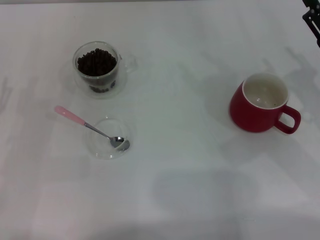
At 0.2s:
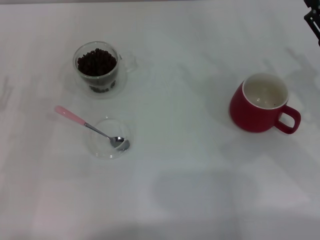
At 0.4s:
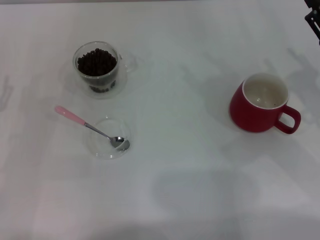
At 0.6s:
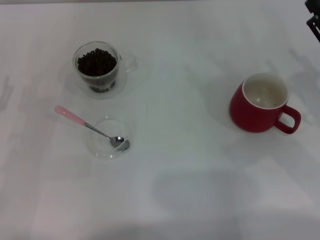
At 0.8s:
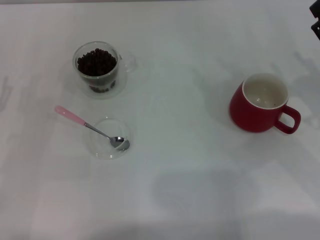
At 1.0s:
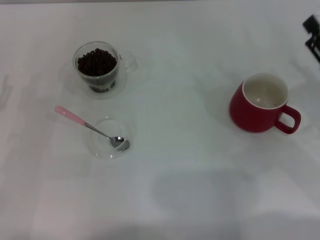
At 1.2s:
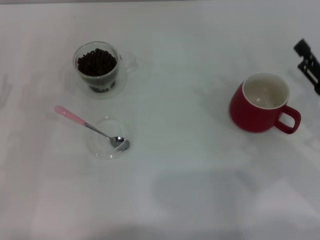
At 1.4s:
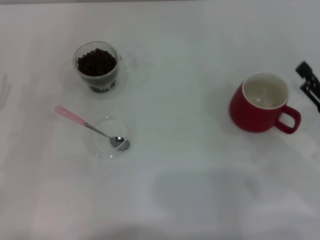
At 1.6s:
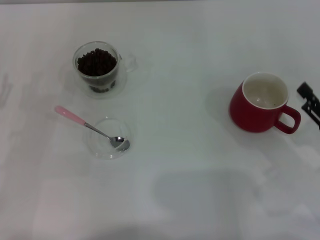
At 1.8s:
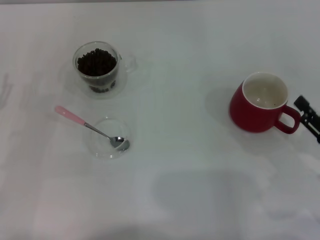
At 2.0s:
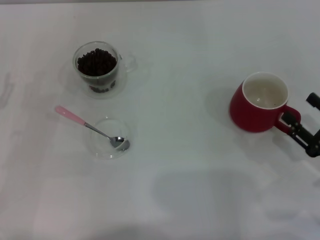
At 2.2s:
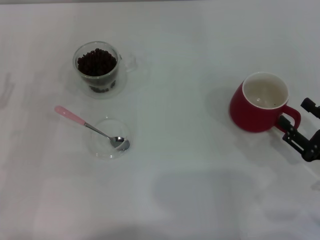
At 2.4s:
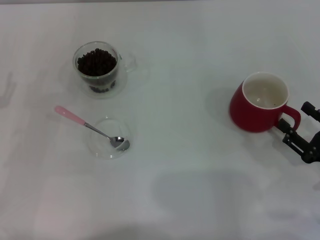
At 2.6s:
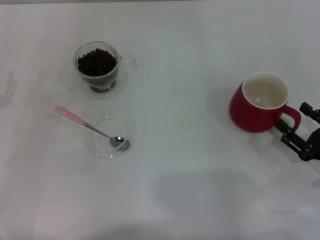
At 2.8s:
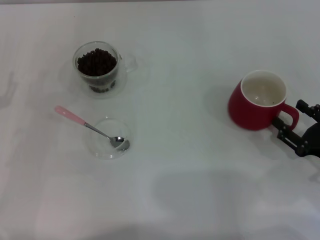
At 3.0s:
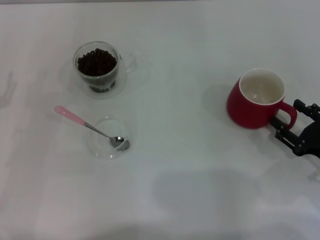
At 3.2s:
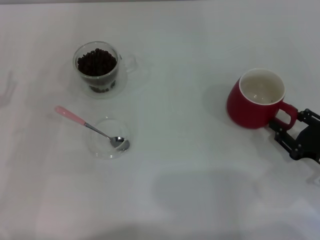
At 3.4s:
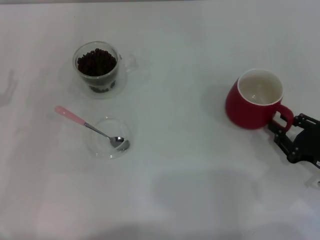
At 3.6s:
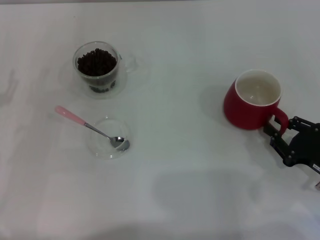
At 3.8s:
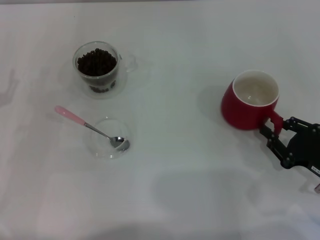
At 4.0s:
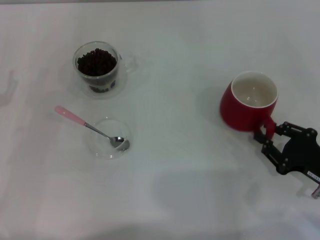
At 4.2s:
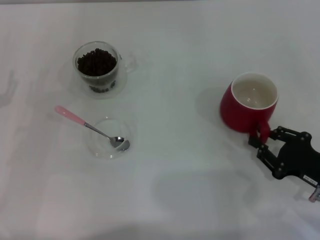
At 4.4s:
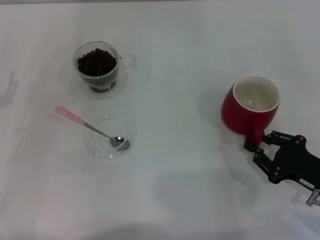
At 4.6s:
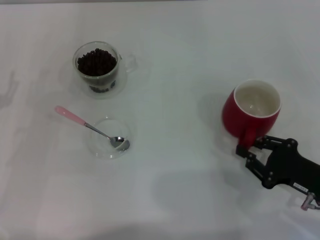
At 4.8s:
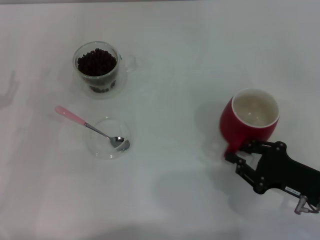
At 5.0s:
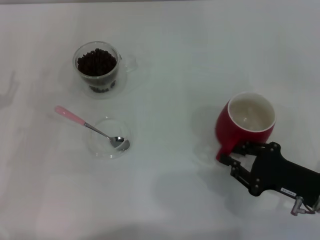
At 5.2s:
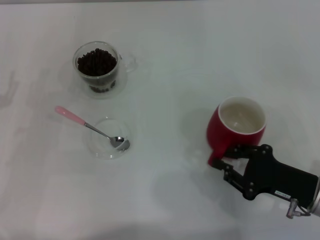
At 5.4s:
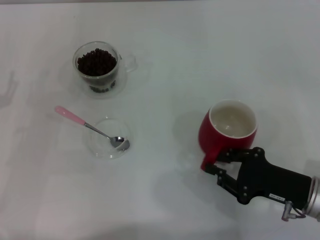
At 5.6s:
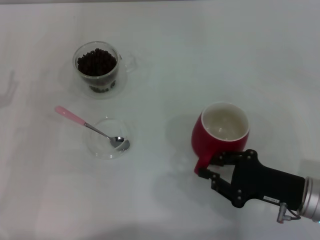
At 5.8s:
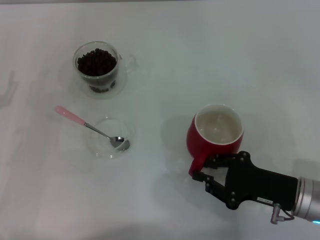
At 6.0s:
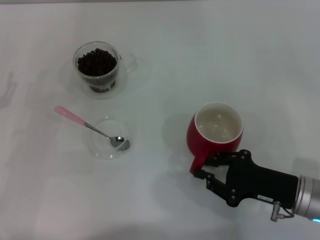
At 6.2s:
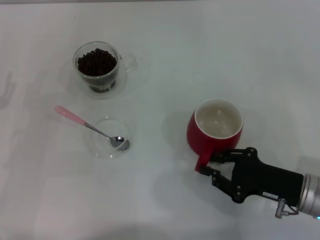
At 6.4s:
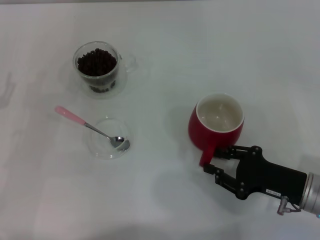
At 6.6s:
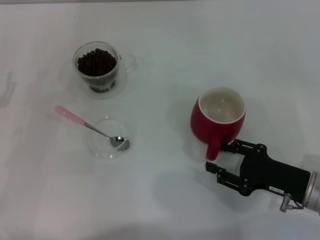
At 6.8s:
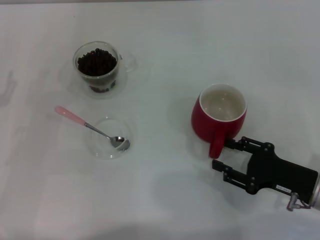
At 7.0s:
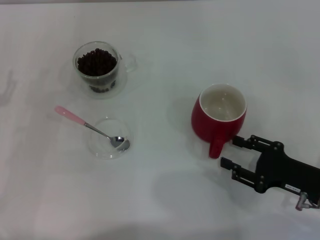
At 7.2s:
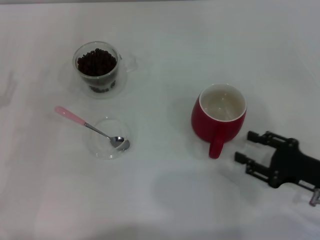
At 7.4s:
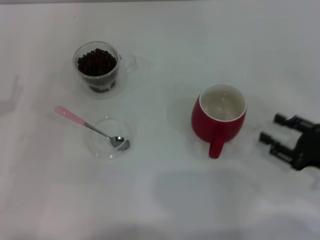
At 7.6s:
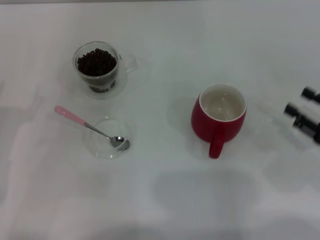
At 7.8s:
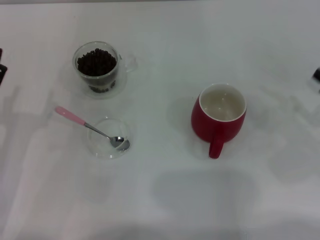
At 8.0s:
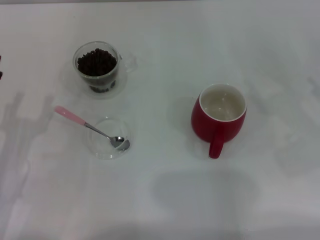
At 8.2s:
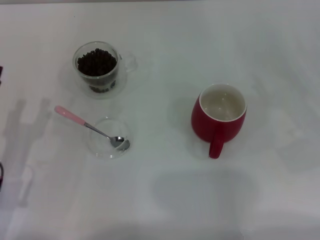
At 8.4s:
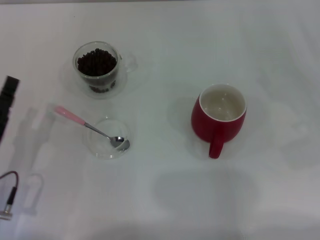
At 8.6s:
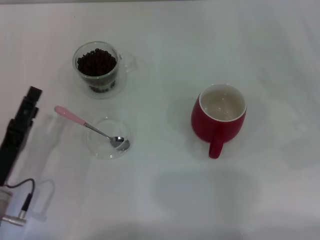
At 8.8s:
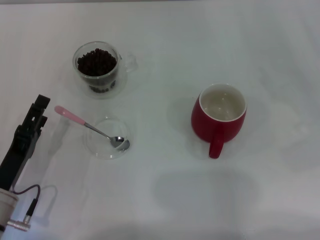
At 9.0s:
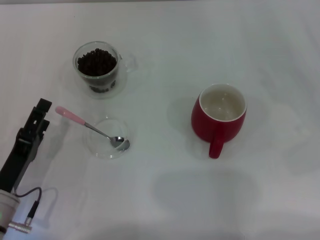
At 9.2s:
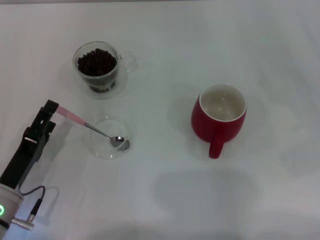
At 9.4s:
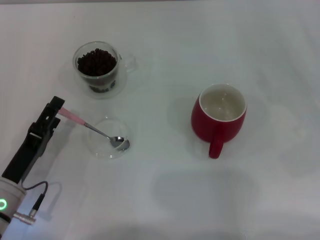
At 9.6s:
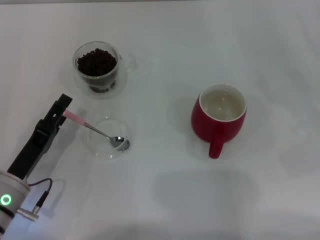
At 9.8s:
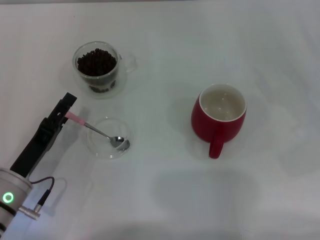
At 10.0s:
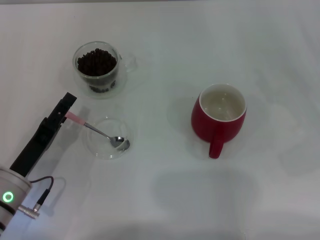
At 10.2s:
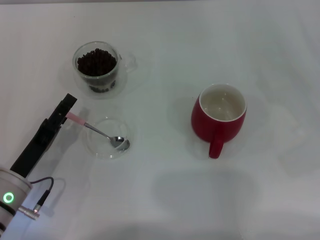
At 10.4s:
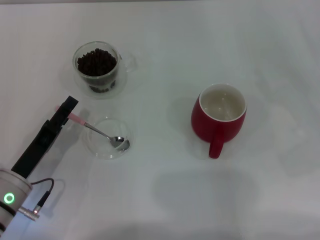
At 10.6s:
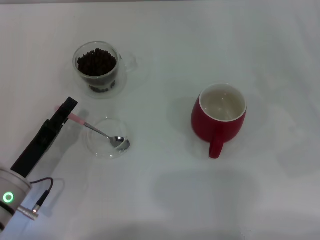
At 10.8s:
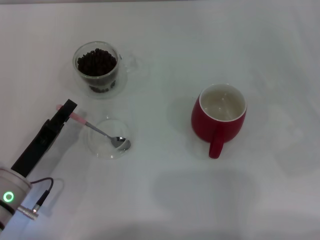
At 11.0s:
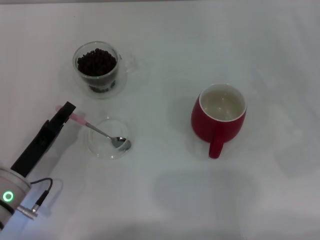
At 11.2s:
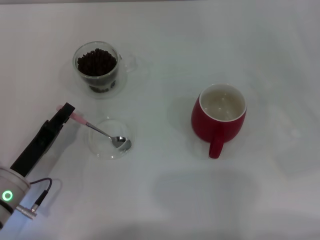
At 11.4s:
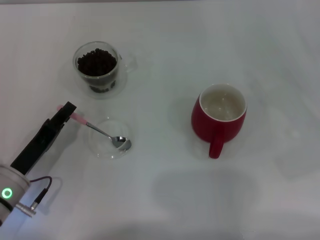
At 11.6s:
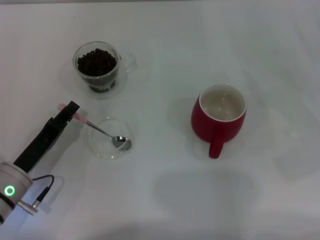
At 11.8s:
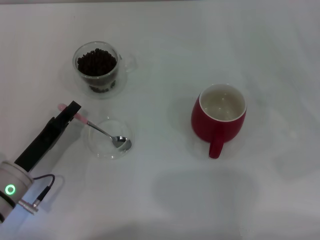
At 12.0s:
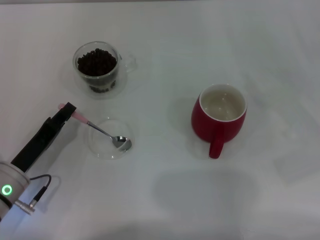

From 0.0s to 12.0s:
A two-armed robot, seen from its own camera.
Task of the whole recording: Use a pink spoon to take out the coffee beans from the glass and pour them into the red cup.
Step, from 0.0s to 7.4s: Move the cup to the center of view with the left gripper.
From 0.0s to 1.6s: The right gripper is displaced backward by roughly 10 cm.
From 1.6s to 3.0s: The grippers stay close to where they were, moving slightly.
From 3.0s to 4.4s: The right gripper closes.
From 4.4s to 6.0s: The right gripper is displaced to the left by about 5 cm.
From 6.0s to 7.6s: The right gripper goes some 10 cm to the right, and opens its fingers.
From 7.6s to 9.0s: The right gripper shifts about 10 cm to the right and upward. The left gripper is displaced downward by roughly 5 cm.
From 9.0s to 10.4s: The grippers stay close to where they were, moving slightly.
From 10.4s to 12.0s: The left gripper closes up.

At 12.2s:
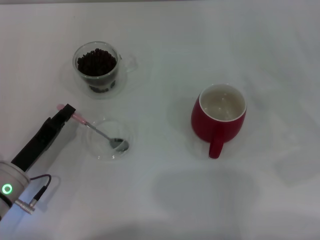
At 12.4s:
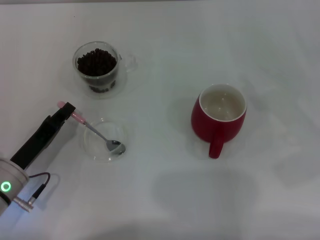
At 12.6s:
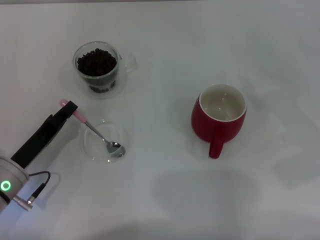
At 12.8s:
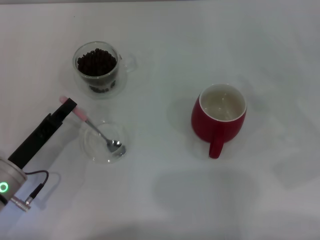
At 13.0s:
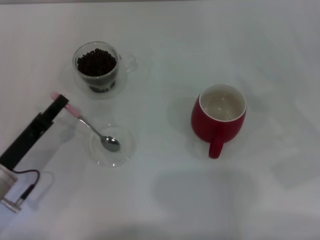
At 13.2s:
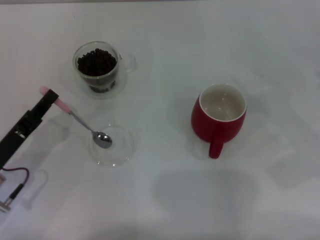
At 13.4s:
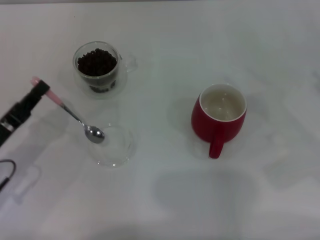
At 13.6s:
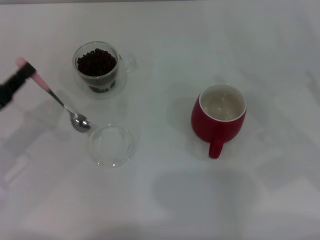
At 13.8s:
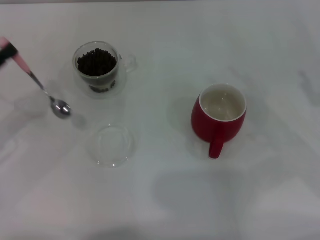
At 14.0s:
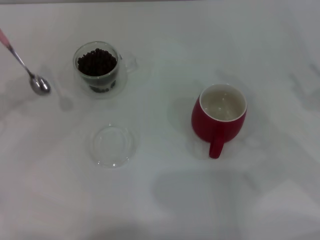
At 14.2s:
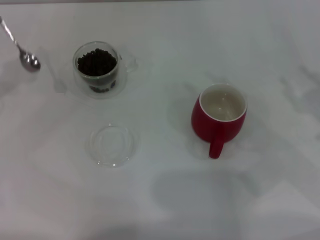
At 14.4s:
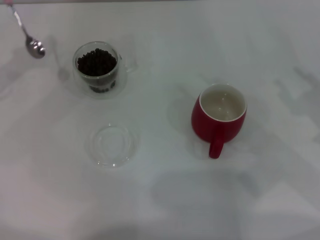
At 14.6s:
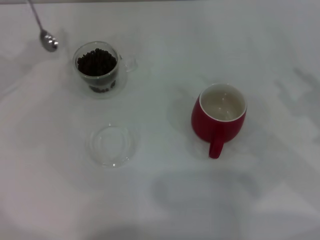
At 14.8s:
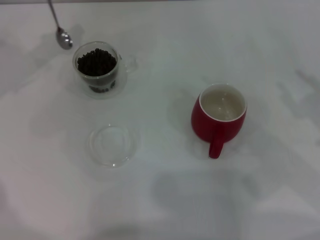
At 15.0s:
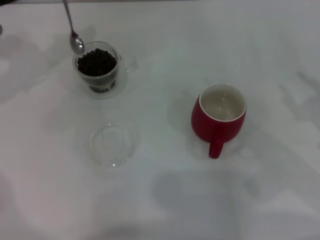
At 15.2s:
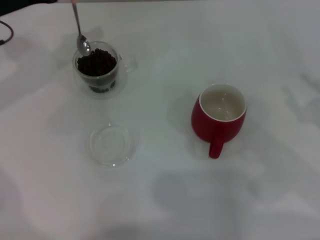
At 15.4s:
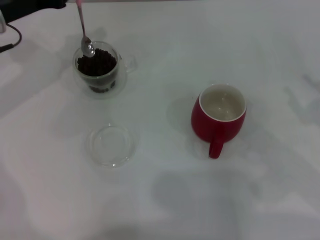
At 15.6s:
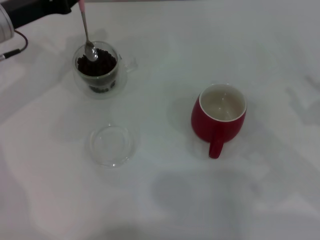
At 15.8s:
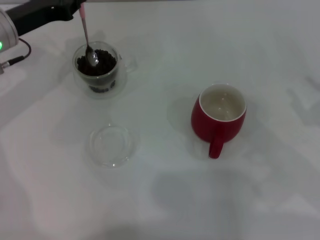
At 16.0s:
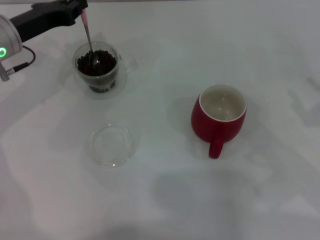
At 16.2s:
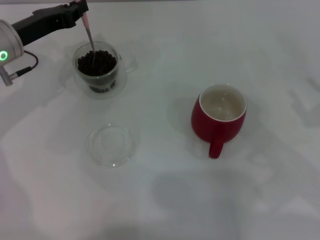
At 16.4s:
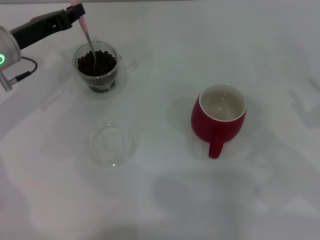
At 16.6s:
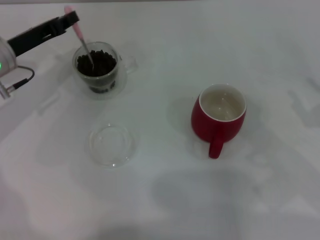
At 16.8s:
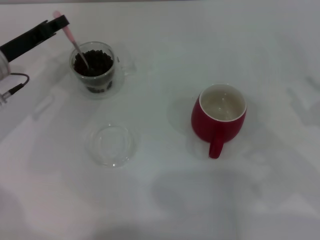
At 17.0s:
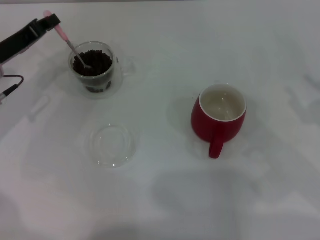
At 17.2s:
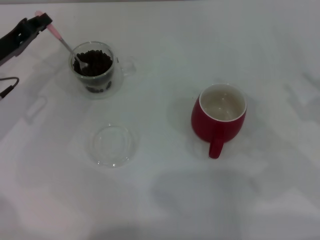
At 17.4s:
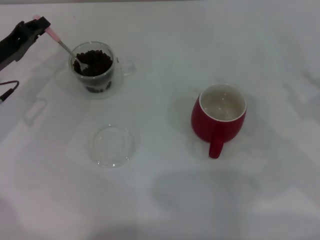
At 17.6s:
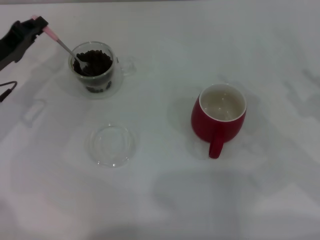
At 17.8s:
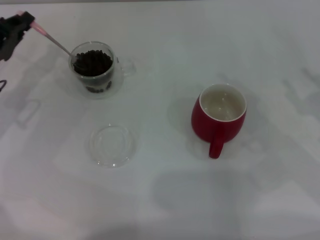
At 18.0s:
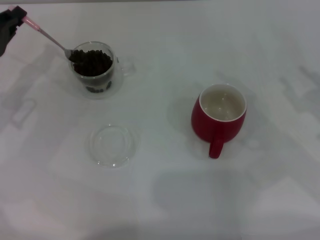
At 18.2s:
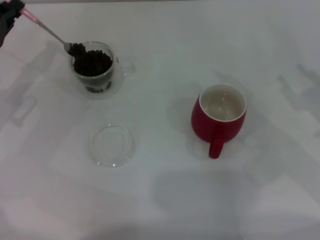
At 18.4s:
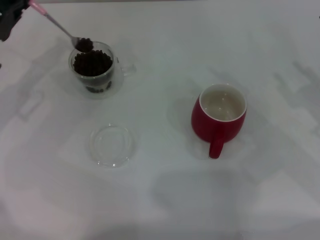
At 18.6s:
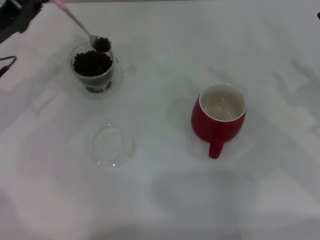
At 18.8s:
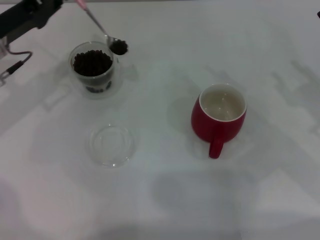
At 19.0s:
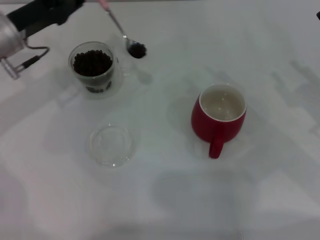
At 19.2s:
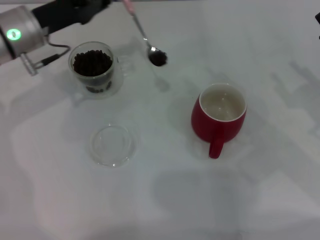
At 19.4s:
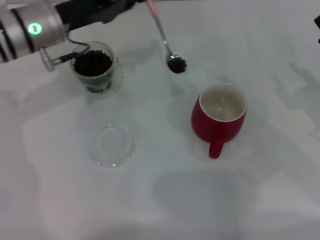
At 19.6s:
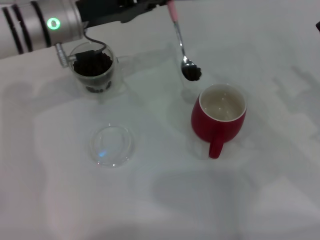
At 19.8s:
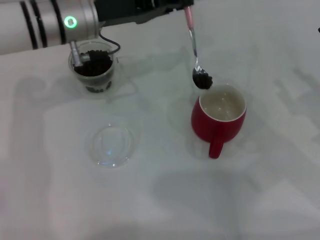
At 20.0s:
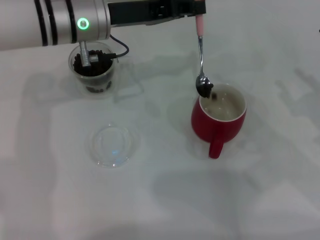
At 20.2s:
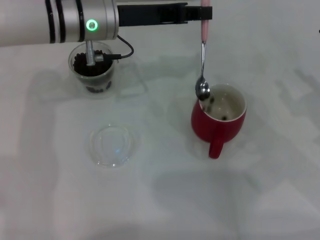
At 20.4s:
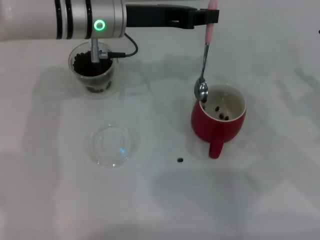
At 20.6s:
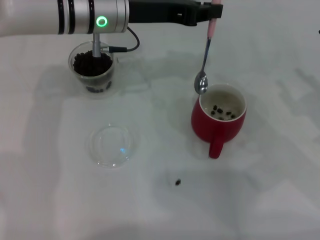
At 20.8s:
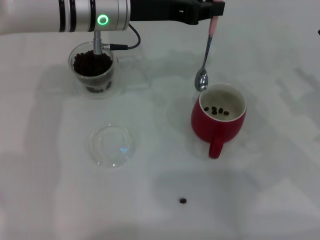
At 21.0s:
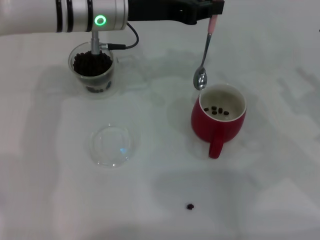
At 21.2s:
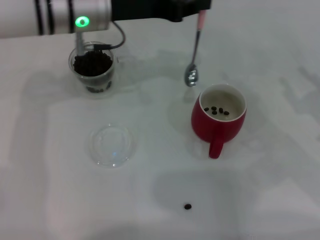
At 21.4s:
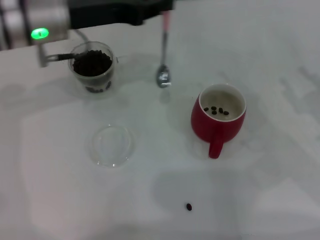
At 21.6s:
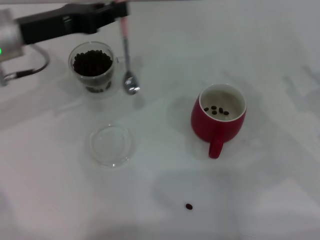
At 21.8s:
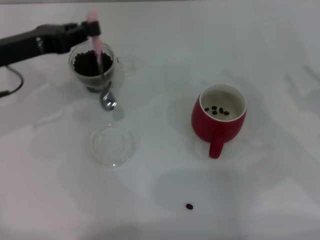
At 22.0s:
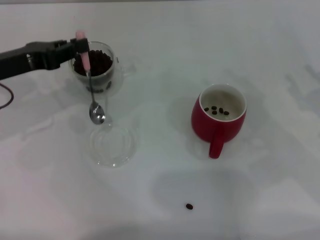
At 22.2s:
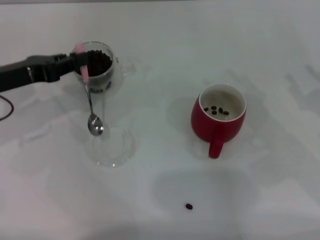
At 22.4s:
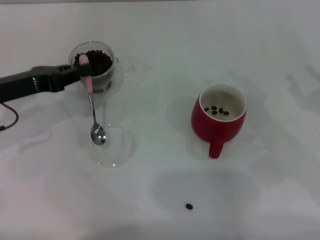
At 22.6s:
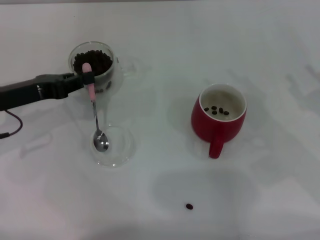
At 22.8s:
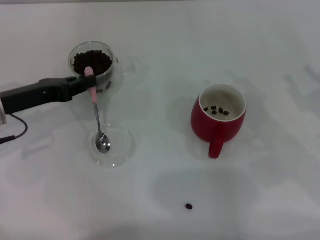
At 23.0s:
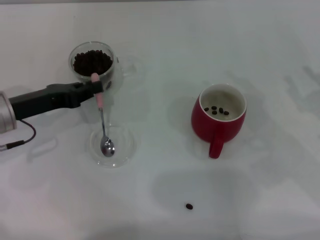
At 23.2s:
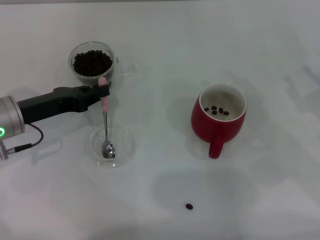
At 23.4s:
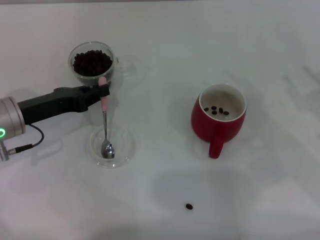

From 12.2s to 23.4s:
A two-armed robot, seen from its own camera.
Task of the whole recording: Use a pink spoon to take out the coffee beans from the glass and pour them into the red cup.
Step, from 13.6s to 20.4s: Scoop a spoonful of beans into the cup with the right gripper.
From 12.2s to 13.8s: The left gripper shifts some 15 cm upward and to the left.
From 13.8s to 15.4s: The left gripper is displaced forward, to the right and upward by approximately 15 cm.
From 15.4s to 17.0s: The left gripper is displaced downward by some 5 cm.
From 17.0s to 18.6s: The grippers stay close to where they were, moving slightly.
From 18.6s to 20.2s: The left gripper heads to the right, covering approximately 15 cm.
From 20.2s to 21.8s: The left gripper moves to the left, approximately 15 cm.
From 21.8s to 23.4s: The left gripper heads downward, covering some 10 cm.
